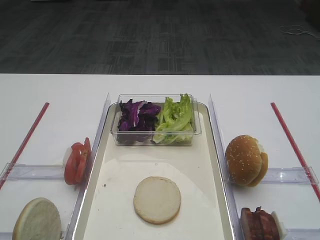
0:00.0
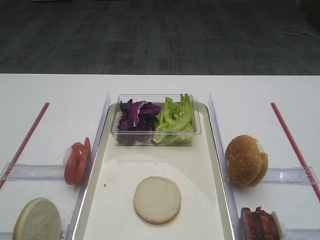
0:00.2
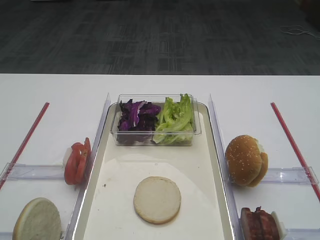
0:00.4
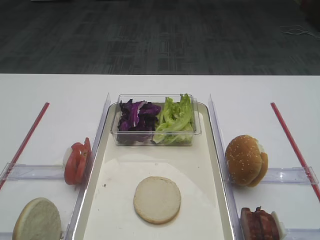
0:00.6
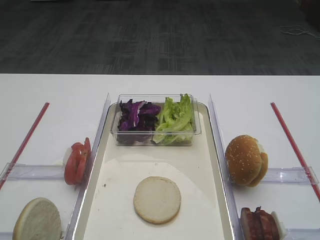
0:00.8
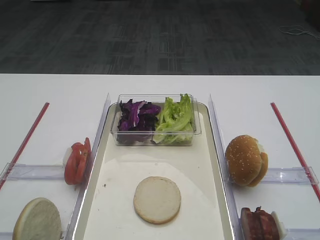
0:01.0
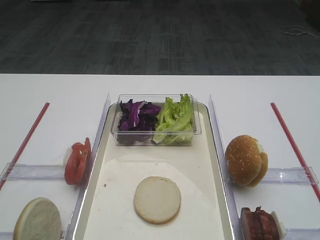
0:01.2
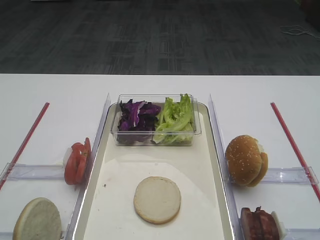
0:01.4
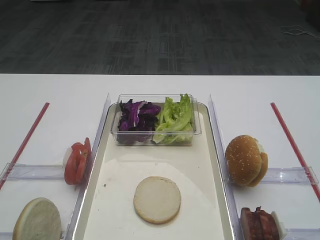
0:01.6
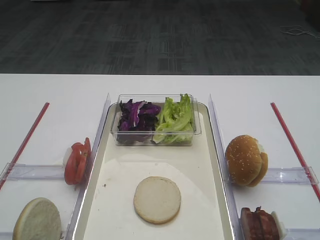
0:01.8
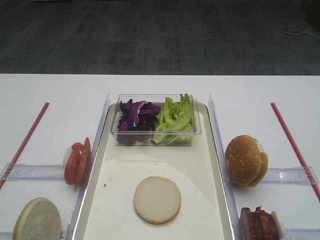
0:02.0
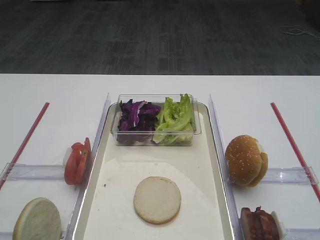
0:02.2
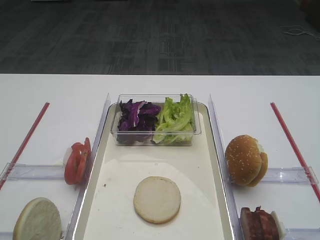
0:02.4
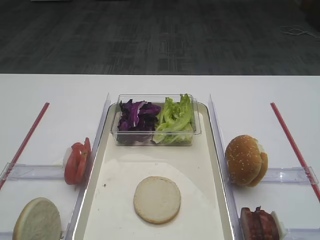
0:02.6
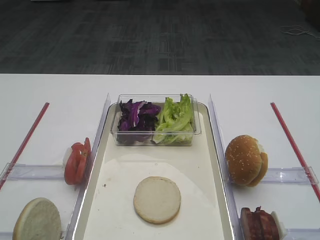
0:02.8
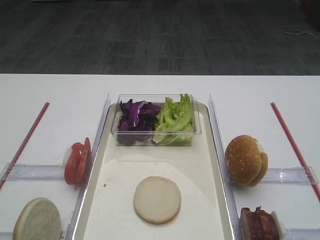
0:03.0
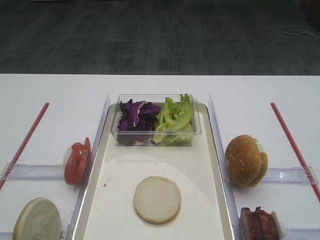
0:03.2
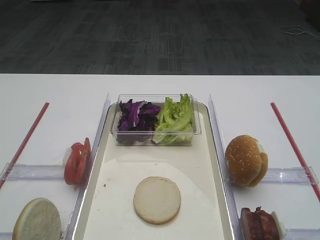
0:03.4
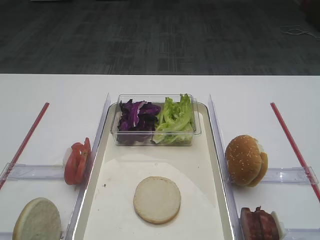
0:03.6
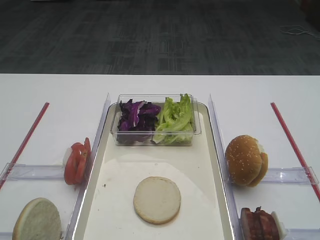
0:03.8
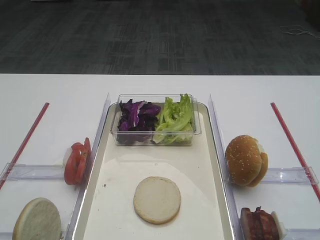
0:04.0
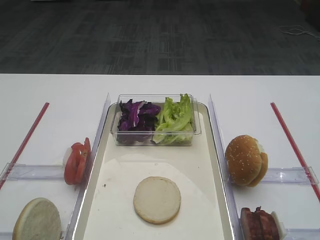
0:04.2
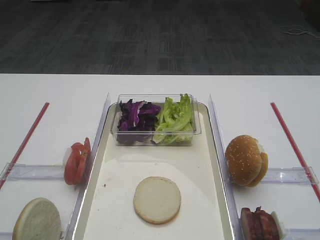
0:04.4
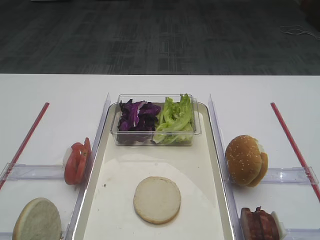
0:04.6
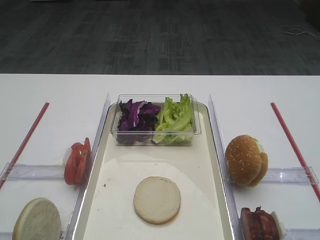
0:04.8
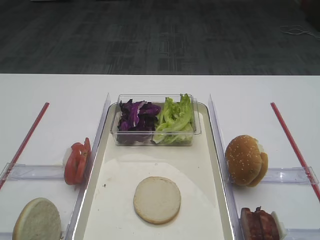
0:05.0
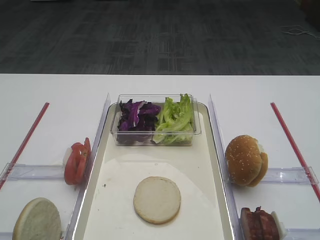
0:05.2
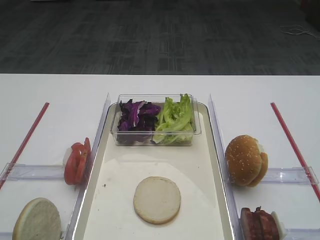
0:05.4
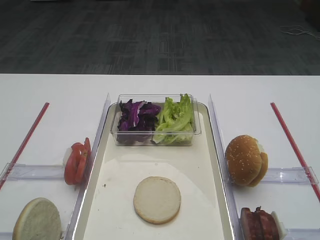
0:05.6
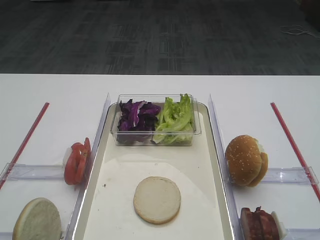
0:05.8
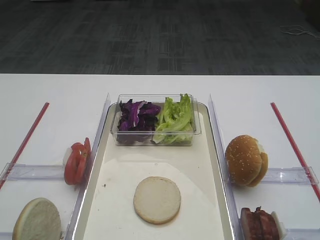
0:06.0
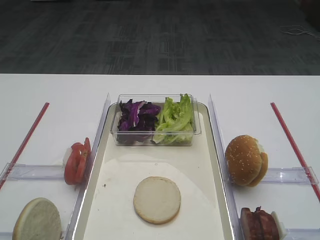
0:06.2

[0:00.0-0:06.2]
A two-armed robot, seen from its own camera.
0:01.6 to 0:06.2: The two grippers keep their place.

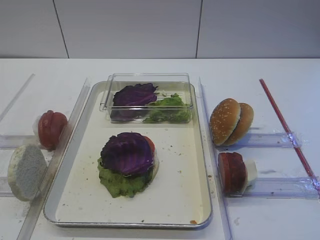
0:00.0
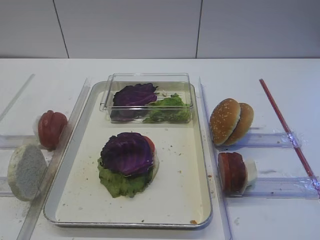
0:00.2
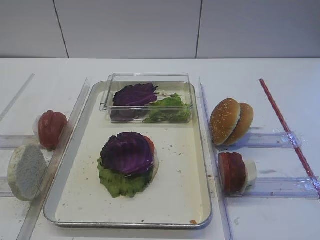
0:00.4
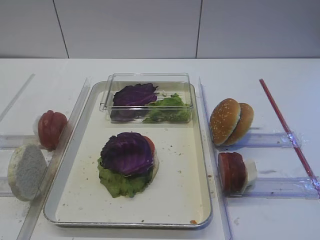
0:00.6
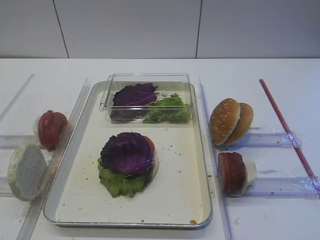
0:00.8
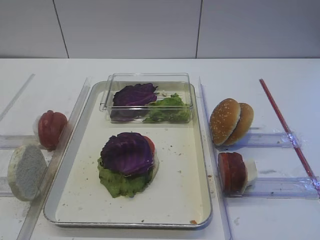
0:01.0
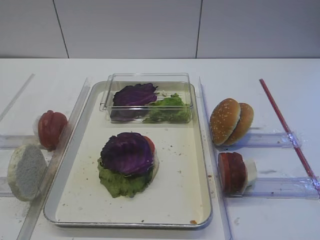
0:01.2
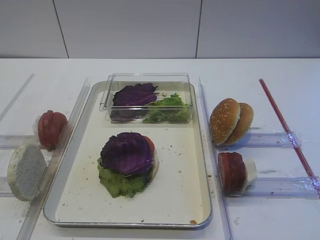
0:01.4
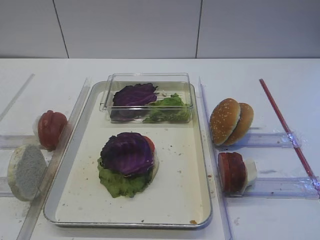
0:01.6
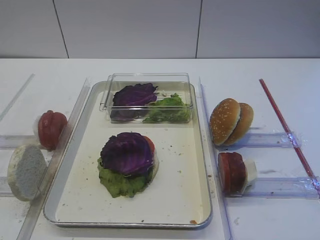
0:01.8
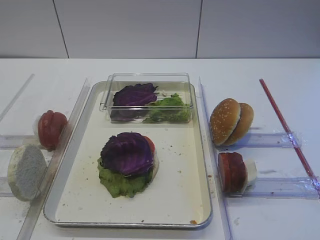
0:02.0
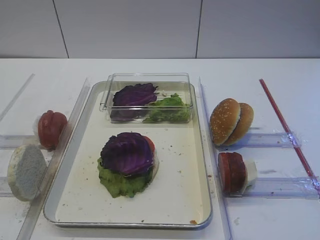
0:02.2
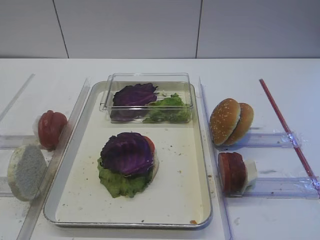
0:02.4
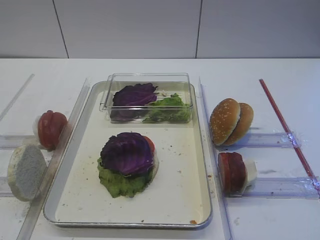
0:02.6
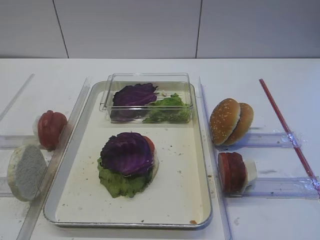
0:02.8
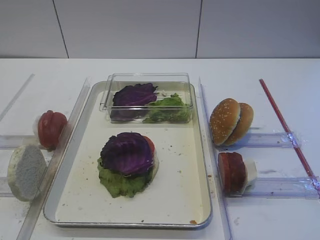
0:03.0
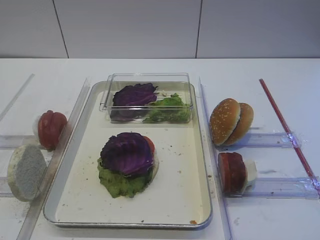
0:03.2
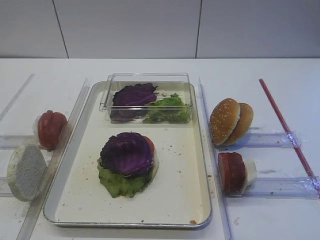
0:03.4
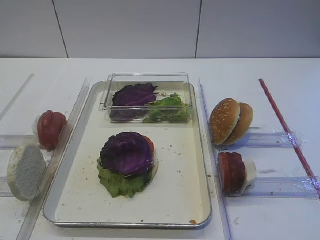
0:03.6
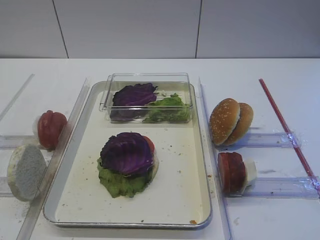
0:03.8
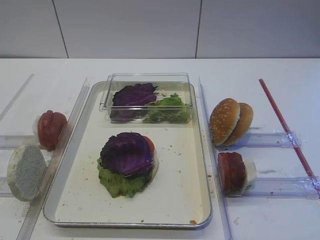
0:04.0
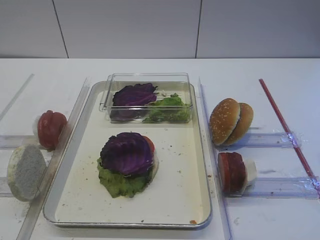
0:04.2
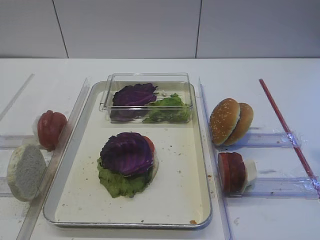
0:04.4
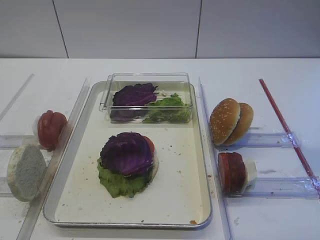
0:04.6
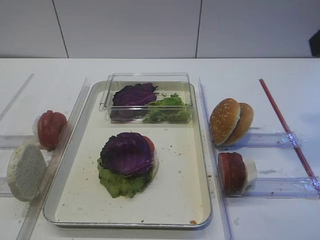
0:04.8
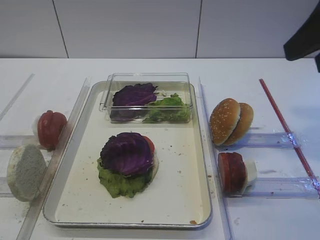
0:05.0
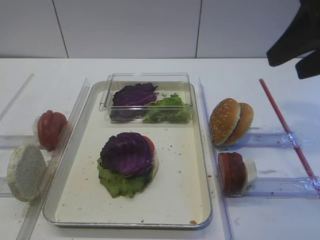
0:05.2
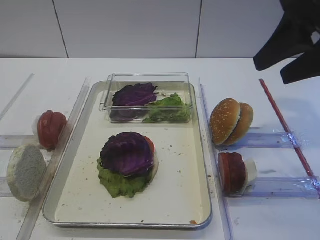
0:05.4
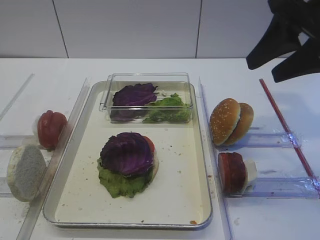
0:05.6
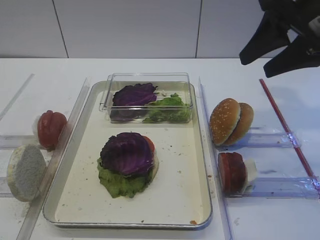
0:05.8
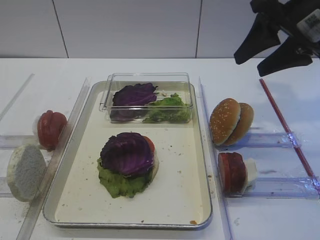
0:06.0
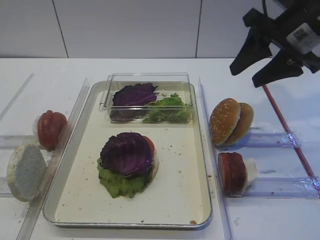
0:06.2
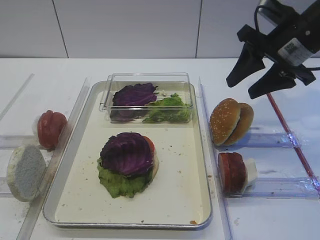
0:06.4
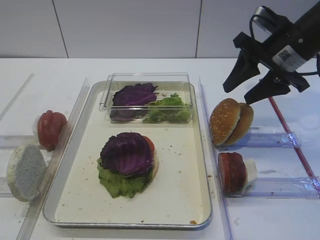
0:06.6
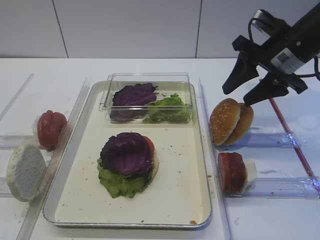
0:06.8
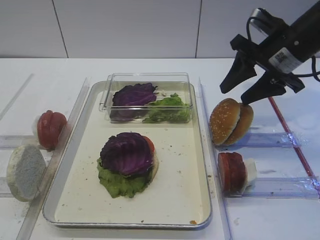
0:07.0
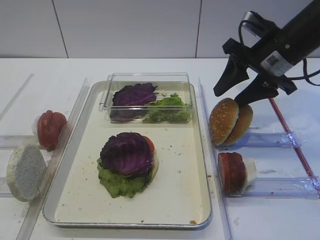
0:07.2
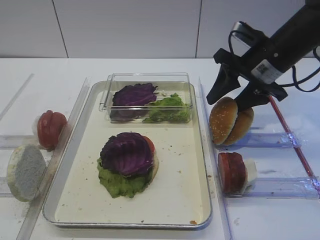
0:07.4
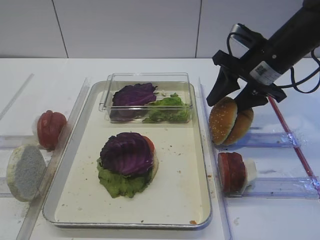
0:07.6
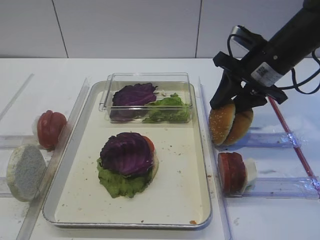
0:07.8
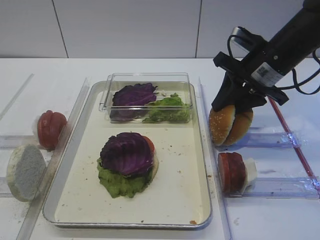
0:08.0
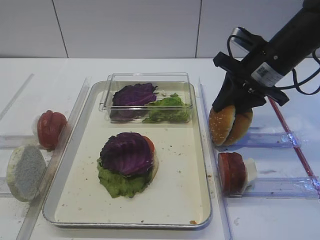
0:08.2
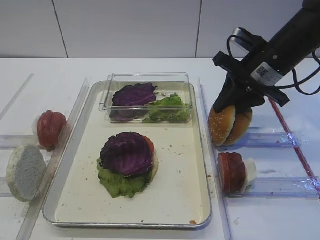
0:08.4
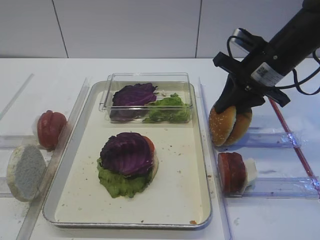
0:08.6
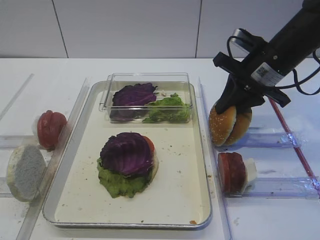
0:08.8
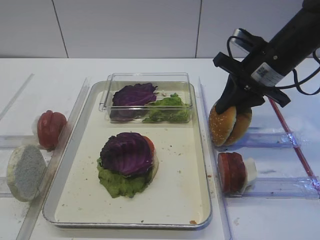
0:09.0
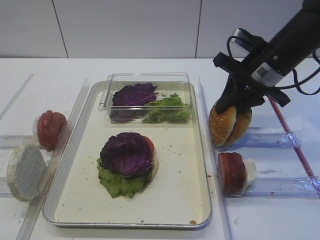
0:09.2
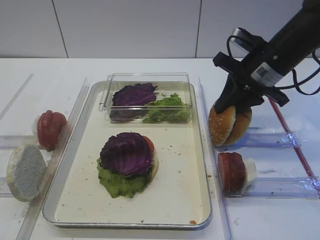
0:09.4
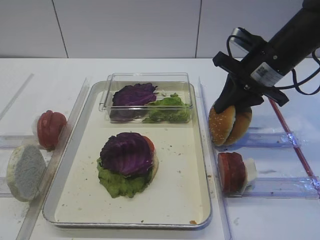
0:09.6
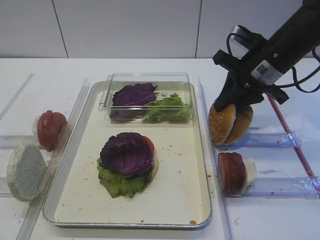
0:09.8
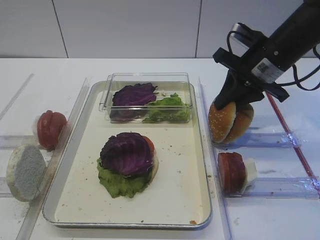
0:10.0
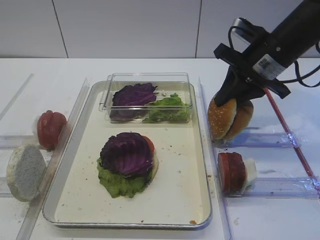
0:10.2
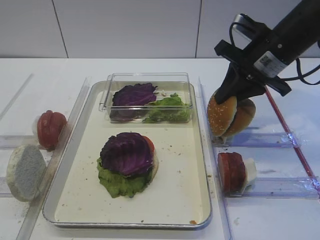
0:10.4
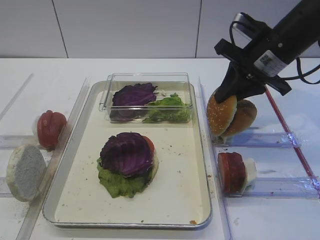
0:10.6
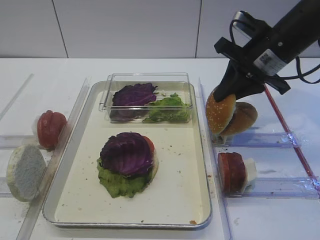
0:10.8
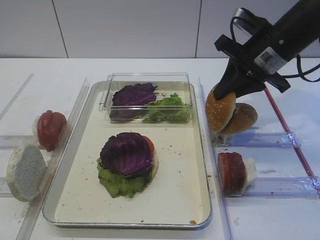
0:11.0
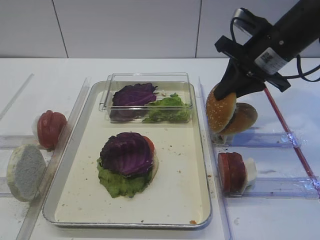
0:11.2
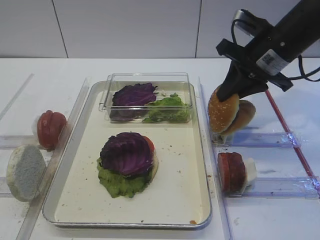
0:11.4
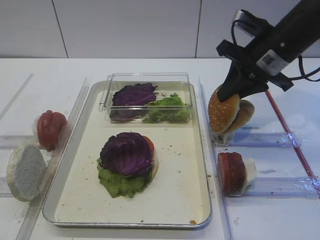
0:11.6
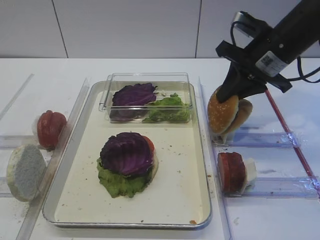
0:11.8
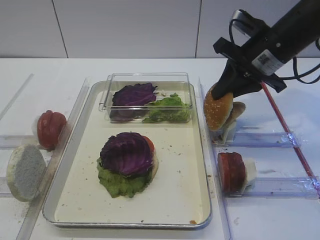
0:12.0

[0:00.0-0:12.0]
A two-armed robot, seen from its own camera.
0:04.4 to 0:06.0: The right gripper heads forward and downward, covering some 20 cm.
0:06.0 to 0:07.6: The right gripper is displaced downward by approximately 10 cm.
0:07.6 to 0:09.0: The right gripper closes its fingers.
0:09.0 to 0:10.4: The grippers make only small movements.
0:10.4 to 0:12.0: The two grippers keep their place.

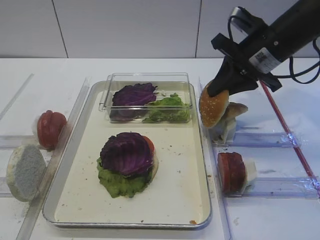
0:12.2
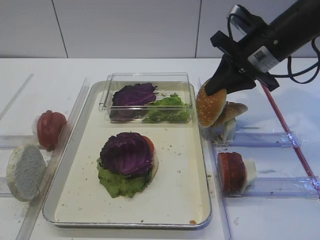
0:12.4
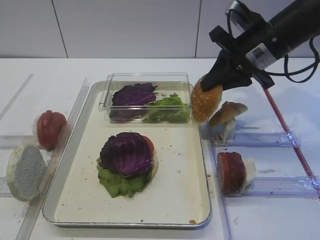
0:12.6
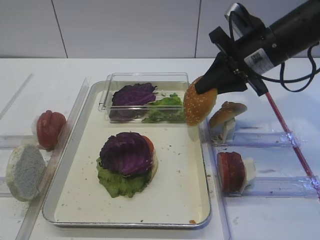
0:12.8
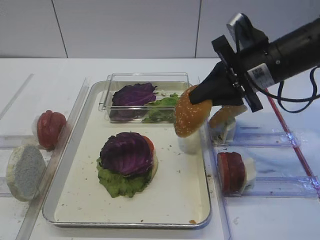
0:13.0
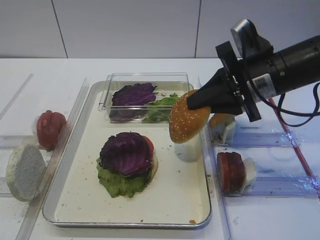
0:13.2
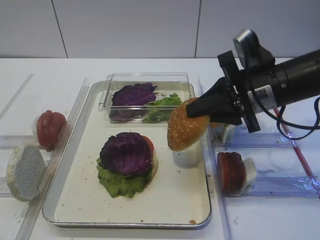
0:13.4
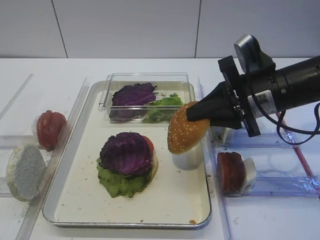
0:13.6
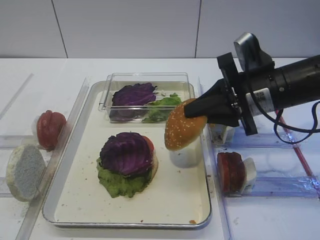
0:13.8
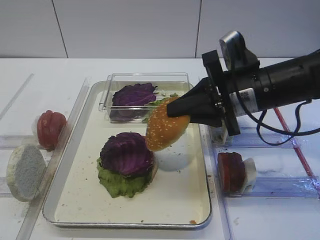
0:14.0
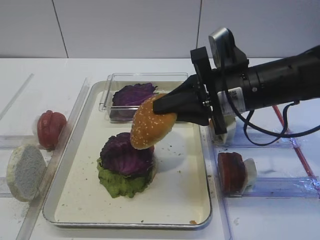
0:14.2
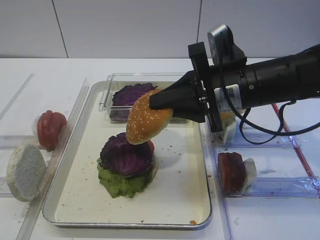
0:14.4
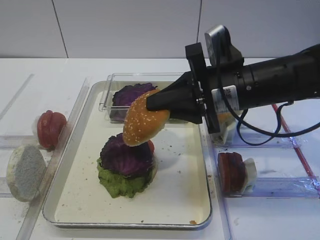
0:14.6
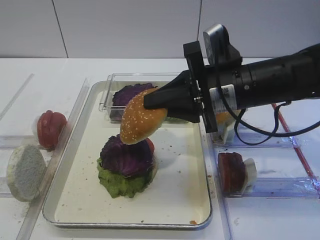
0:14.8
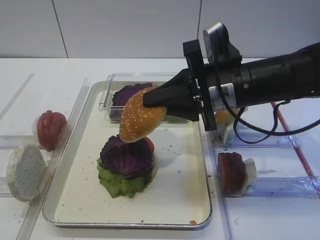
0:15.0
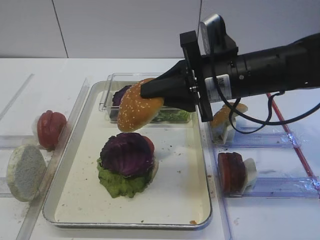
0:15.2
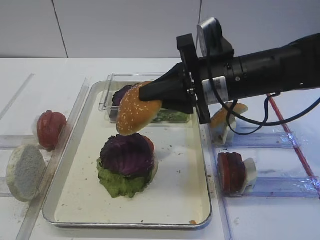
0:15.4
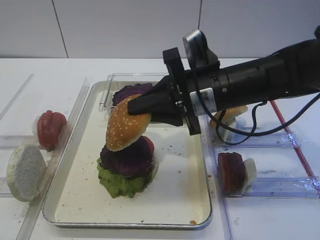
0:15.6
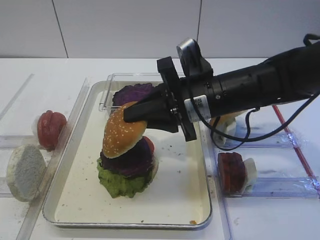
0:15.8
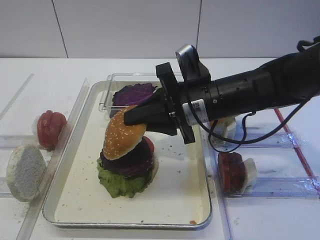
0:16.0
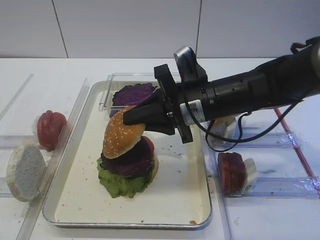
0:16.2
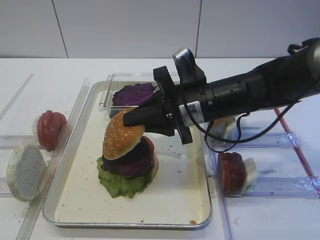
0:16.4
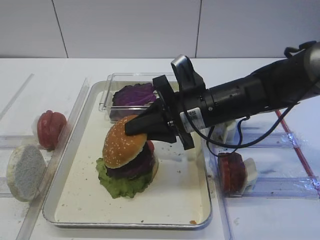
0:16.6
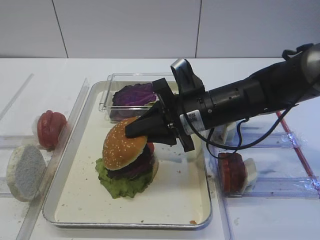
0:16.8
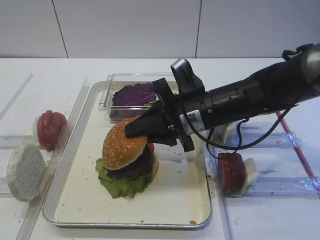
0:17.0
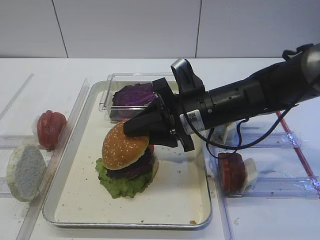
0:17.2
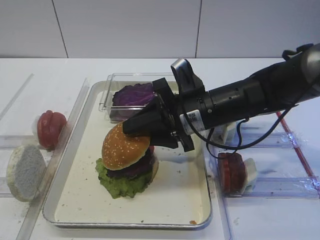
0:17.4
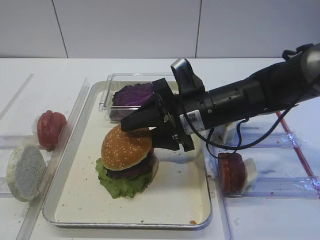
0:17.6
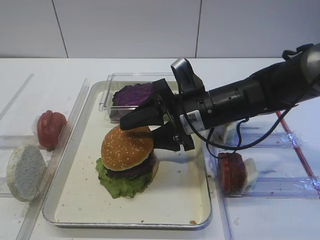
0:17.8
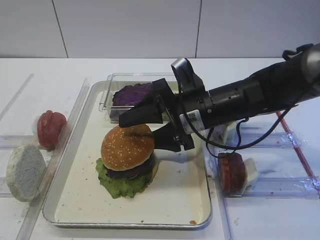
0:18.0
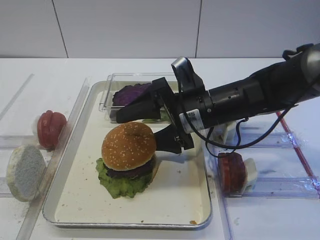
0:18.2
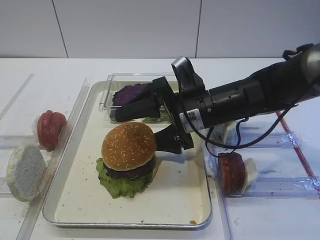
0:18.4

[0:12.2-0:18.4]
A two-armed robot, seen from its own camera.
0:12.2 to 0:13.8: The right gripper shifts some 5 cm backward.
0:13.8 to 0:15.4: The right gripper travels to the left by about 5 cm.
0:15.4 to 0:16.8: The right gripper goes roughly 5 cm downward.
0:16.8 to 0:18.4: The right gripper opens.
